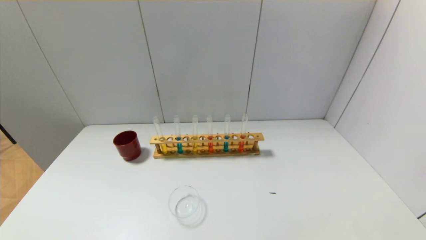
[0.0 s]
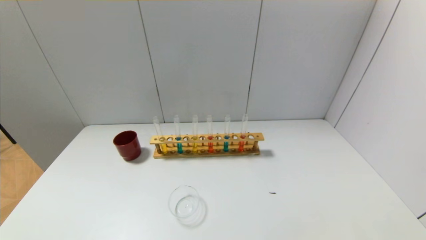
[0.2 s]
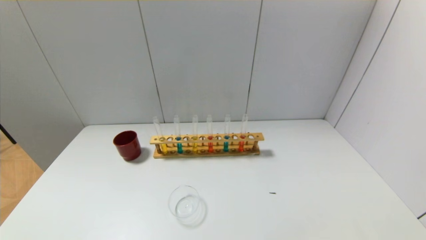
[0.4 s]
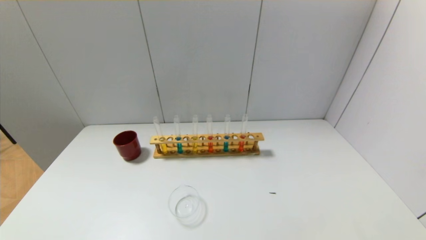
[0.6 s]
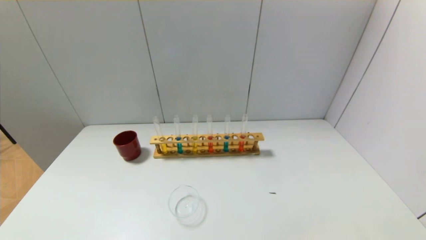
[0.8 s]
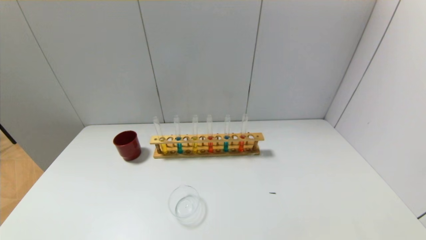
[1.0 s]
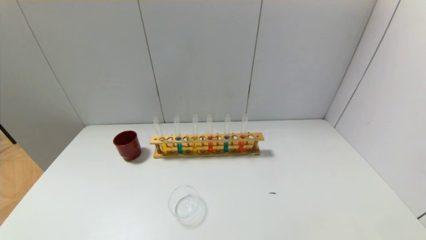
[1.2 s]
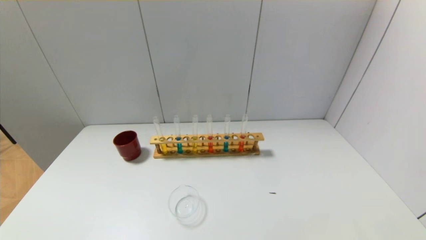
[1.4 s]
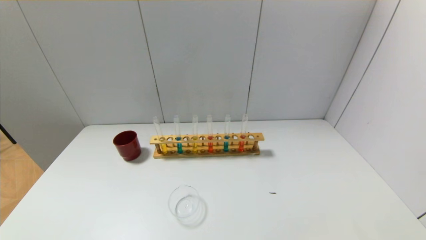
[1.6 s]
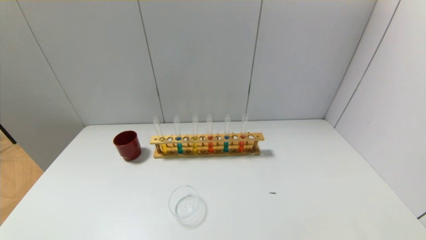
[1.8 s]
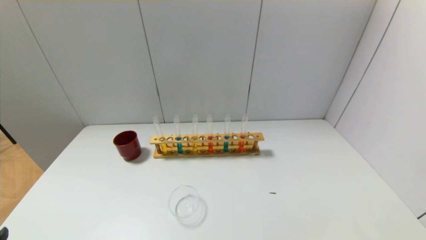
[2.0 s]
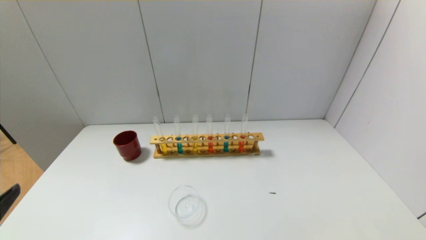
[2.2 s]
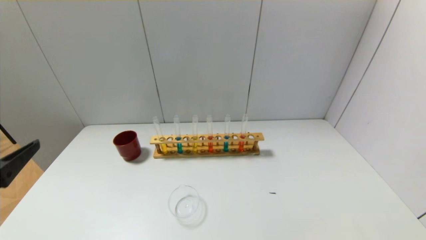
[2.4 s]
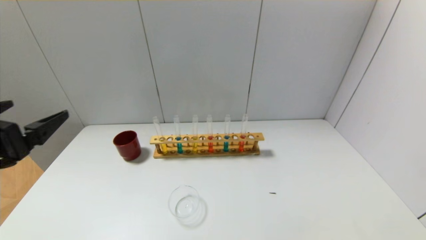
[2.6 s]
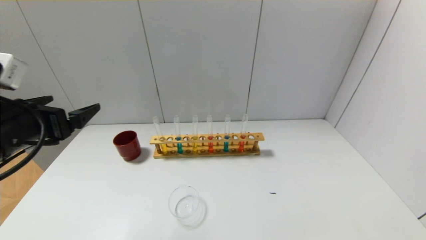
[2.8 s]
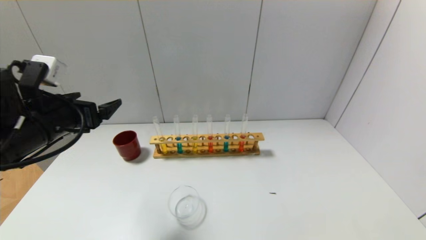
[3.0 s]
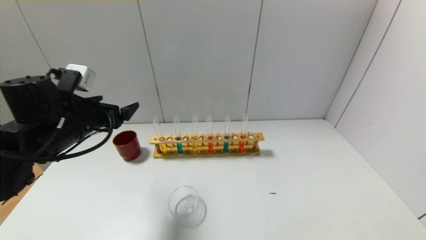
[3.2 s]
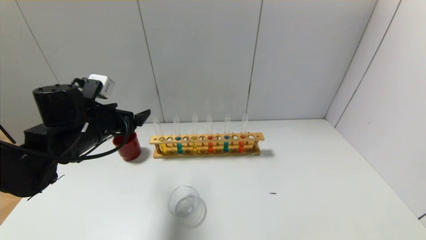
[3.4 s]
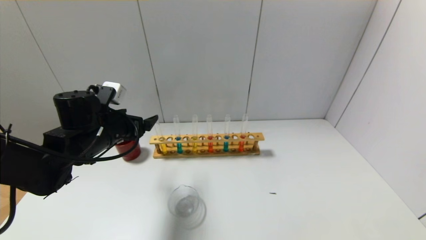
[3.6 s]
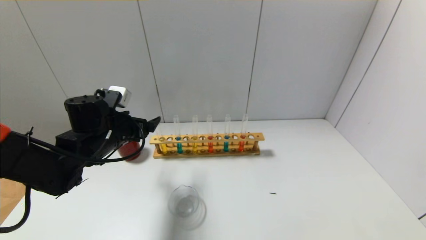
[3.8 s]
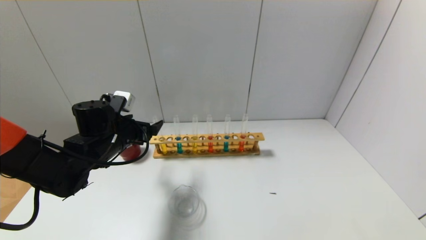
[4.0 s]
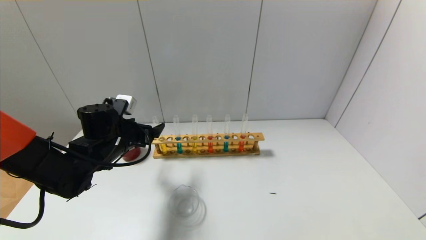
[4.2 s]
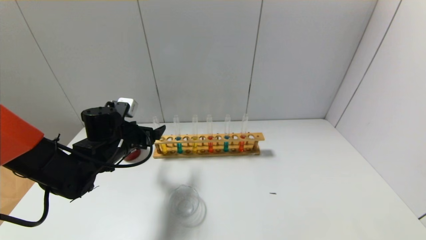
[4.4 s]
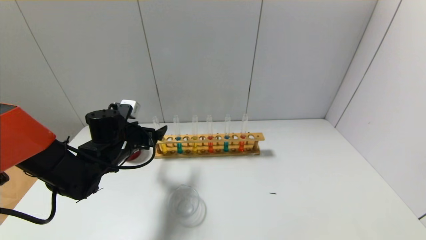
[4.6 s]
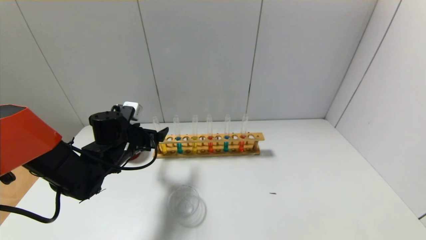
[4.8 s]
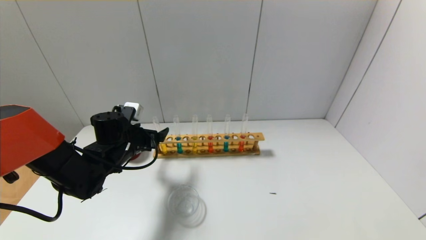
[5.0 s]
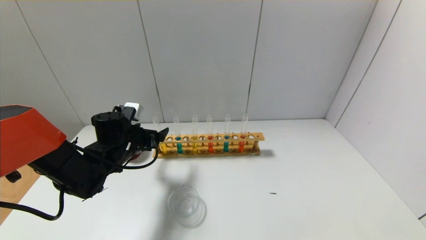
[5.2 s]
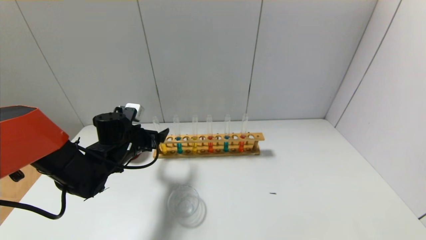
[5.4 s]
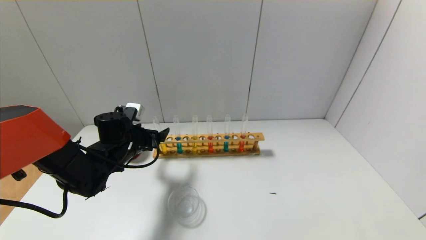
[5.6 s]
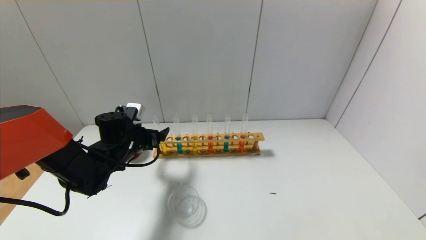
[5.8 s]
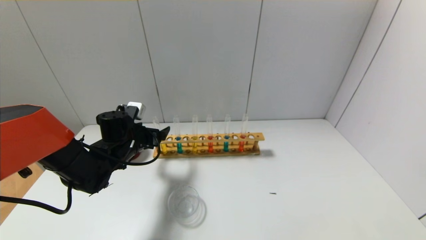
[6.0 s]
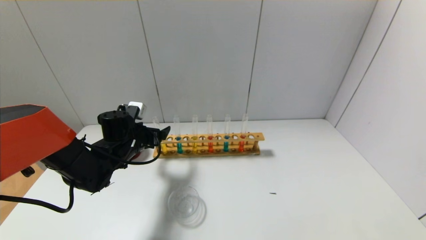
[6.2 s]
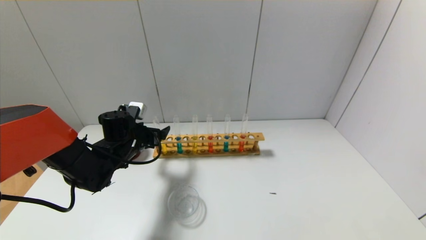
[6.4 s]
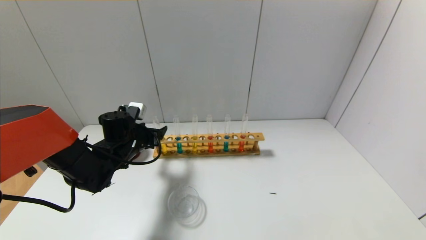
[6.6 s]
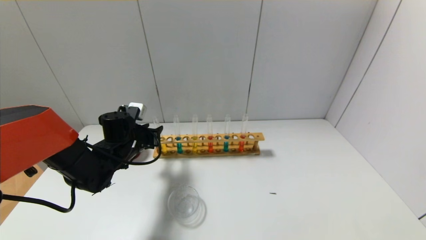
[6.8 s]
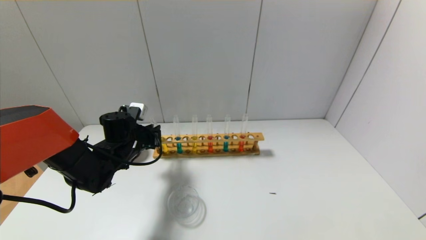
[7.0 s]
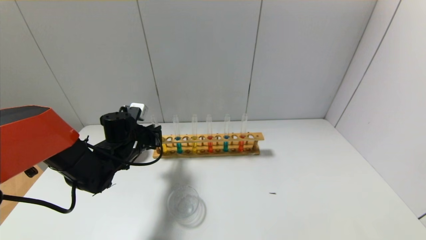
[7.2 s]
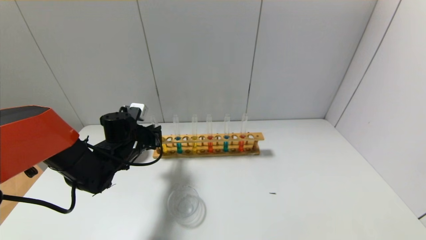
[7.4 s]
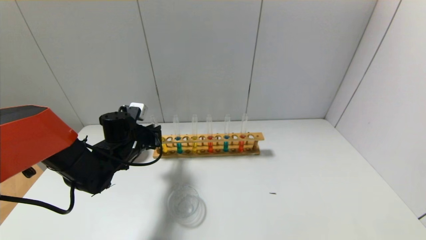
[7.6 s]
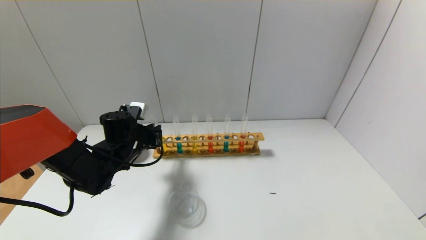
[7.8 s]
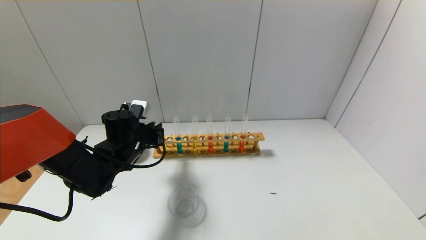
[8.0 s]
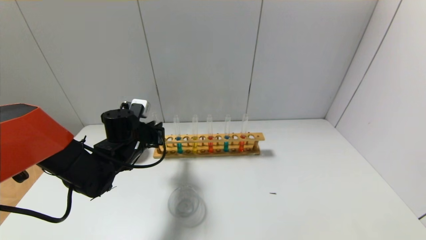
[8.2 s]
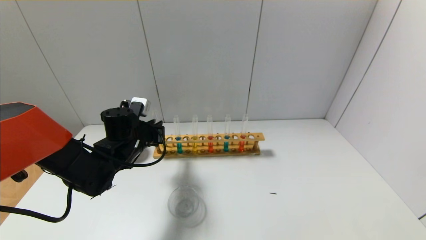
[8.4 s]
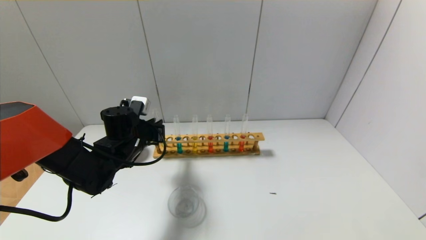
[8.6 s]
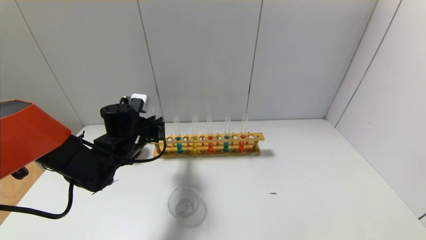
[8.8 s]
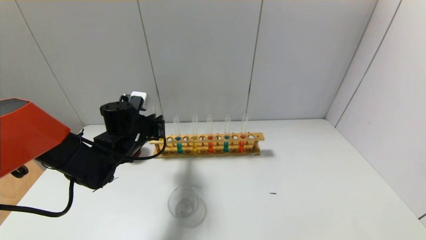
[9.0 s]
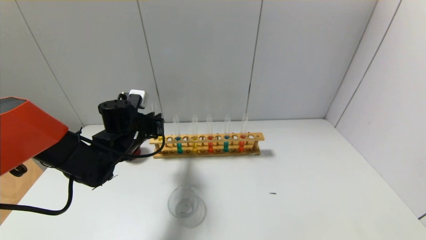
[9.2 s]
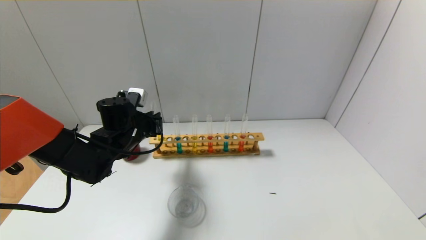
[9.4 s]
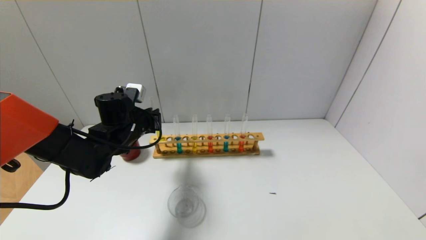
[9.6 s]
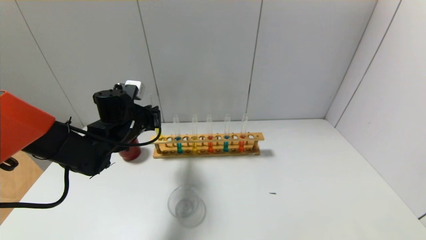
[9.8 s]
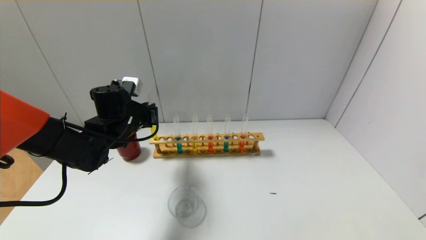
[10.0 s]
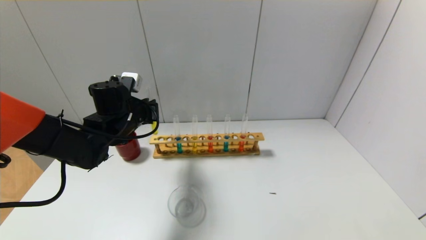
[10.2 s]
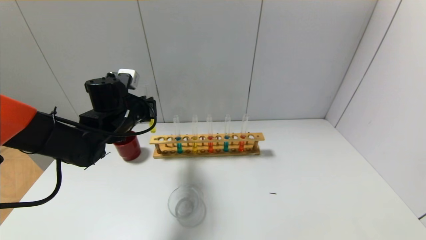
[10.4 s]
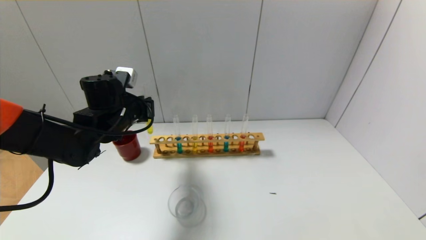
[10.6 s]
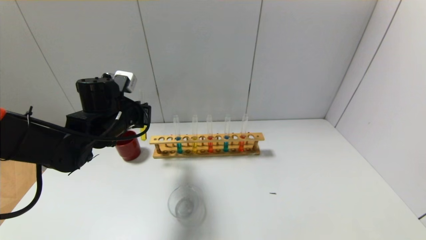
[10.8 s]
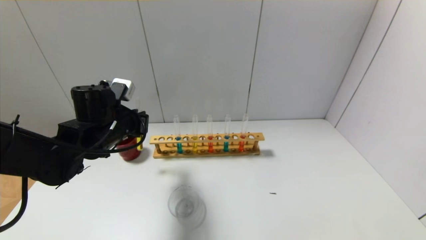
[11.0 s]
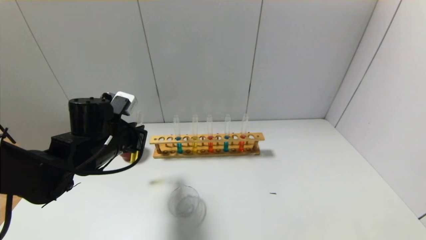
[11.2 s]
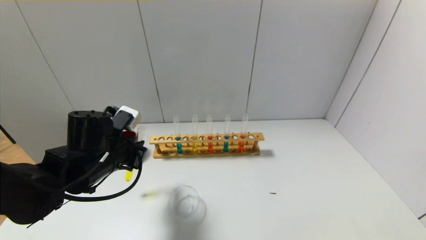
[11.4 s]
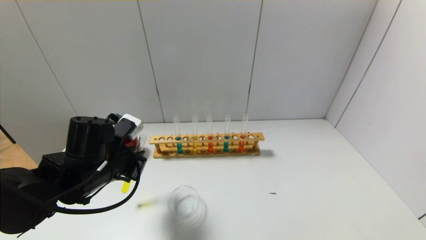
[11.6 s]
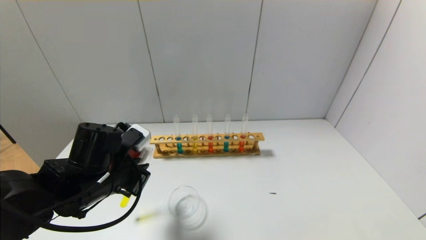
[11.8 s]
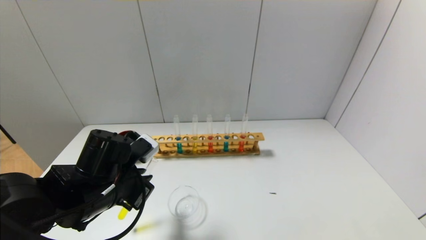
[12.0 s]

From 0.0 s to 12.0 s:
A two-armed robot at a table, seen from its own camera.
Step, from 0.0 s to 7.0 s: Grasp the yellow reagent with the left gripper.
From 1.6 s to 3.0 s: The left gripper is displaced forward and upward by about 30 cm.
From 3.0 s to 4.4 s: The left gripper heads downward, forward and to the right, covering about 15 cm.
From 4.4 s to 6.0 s: The grippers stay close to where they were, moving slightly.
From 6.0 s to 7.6 s: The left gripper closes.
From 7.6 s to 9.0 s: The grippers move only a little.
From 9.0 s to 10.4 s: The left gripper goes roughly 5 cm upward.
From 10.4 s to 12.0 s: The left gripper is displaced backward by about 15 cm.

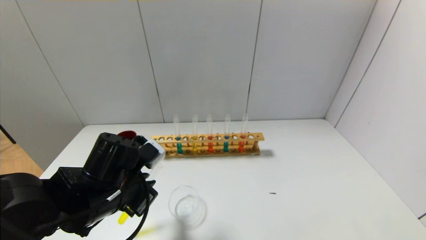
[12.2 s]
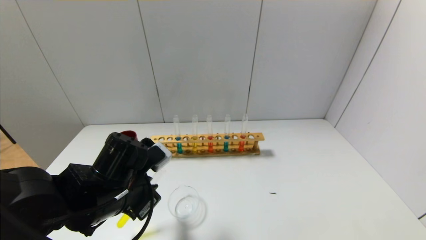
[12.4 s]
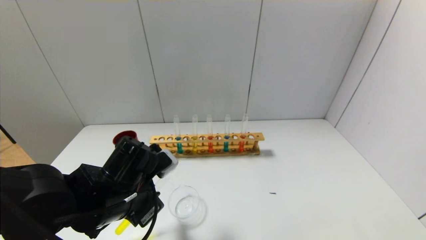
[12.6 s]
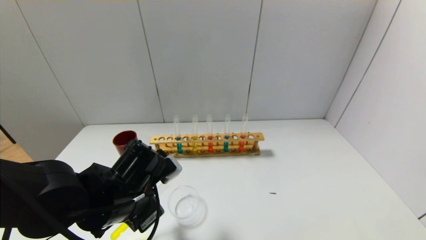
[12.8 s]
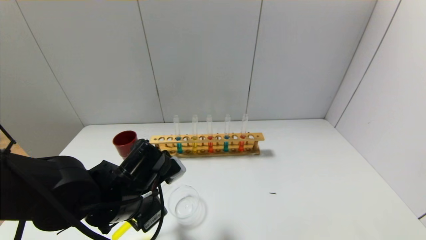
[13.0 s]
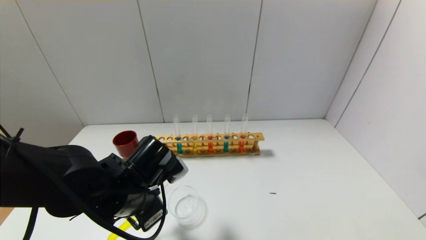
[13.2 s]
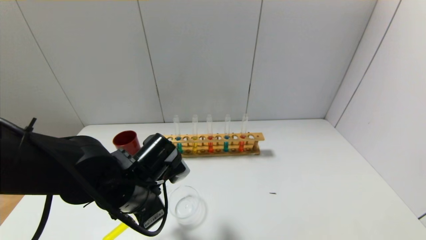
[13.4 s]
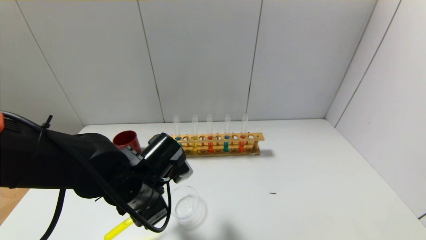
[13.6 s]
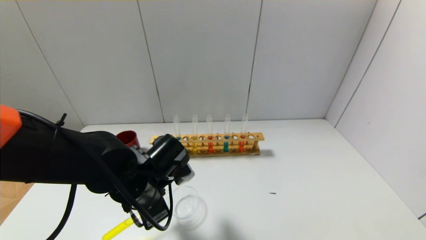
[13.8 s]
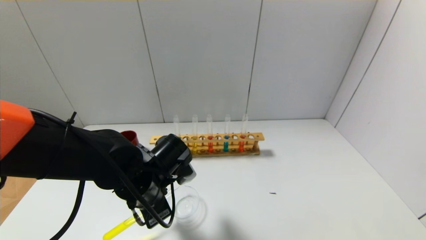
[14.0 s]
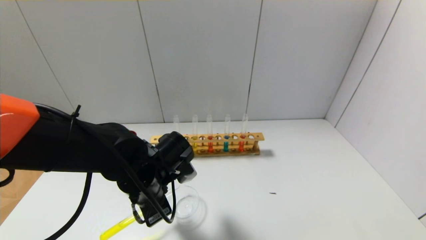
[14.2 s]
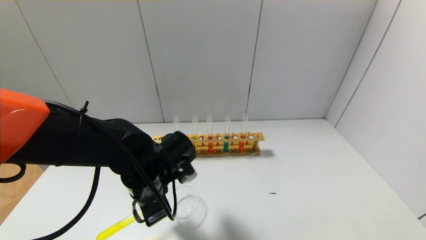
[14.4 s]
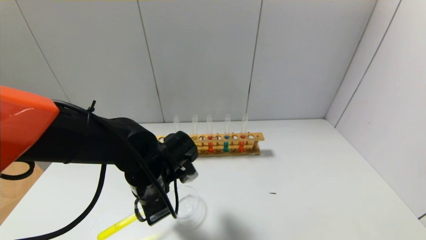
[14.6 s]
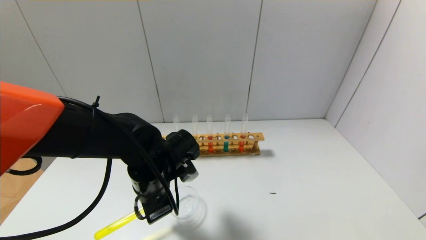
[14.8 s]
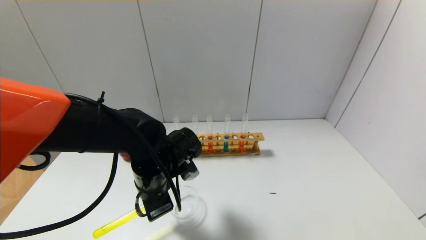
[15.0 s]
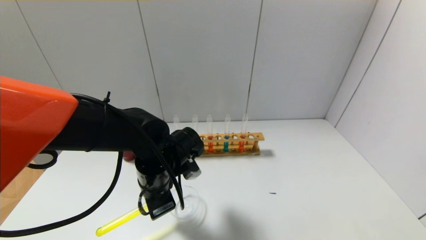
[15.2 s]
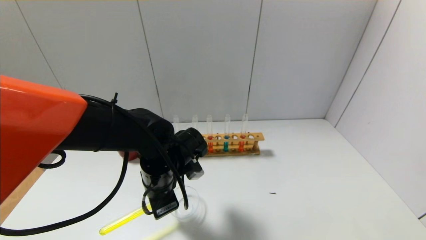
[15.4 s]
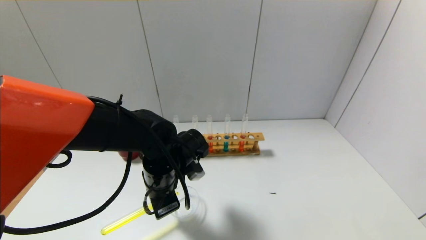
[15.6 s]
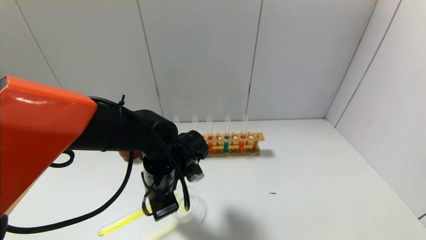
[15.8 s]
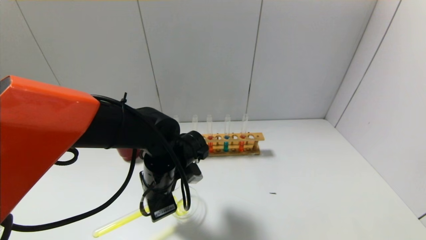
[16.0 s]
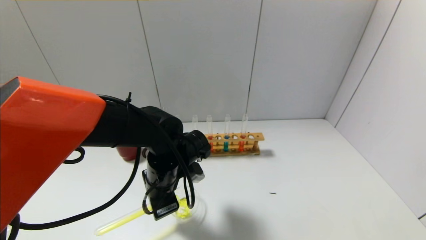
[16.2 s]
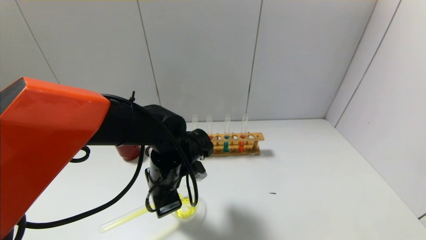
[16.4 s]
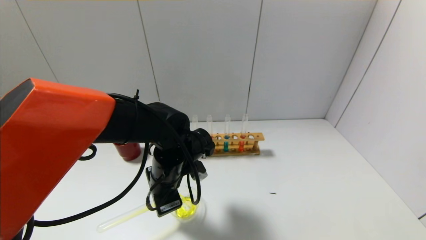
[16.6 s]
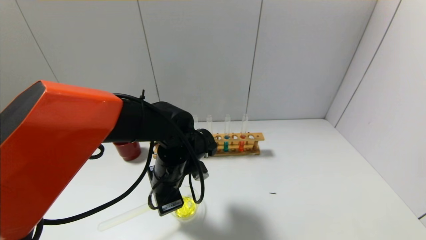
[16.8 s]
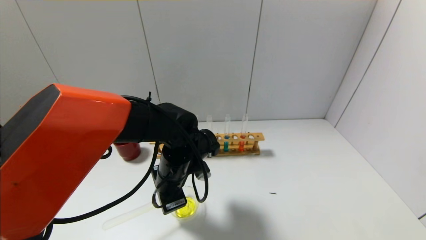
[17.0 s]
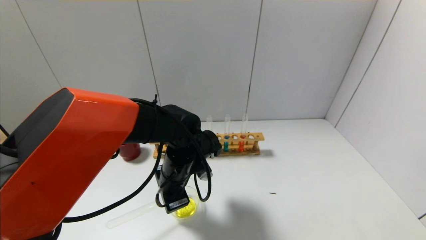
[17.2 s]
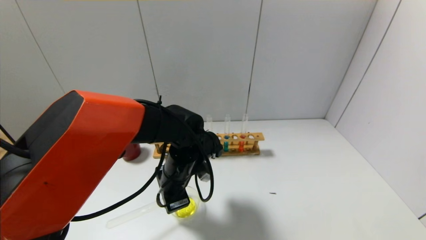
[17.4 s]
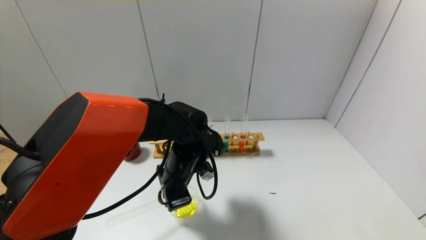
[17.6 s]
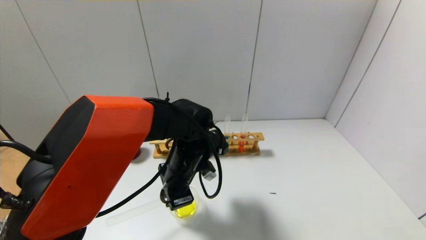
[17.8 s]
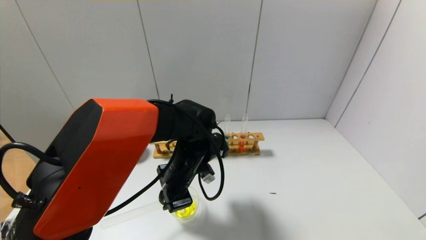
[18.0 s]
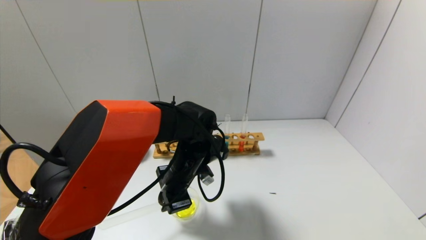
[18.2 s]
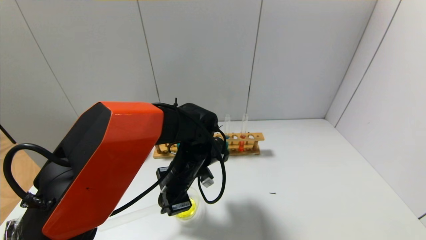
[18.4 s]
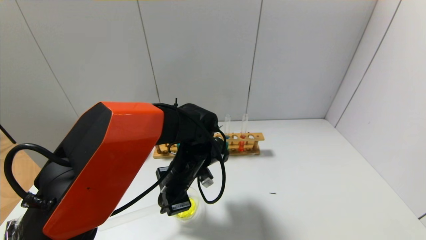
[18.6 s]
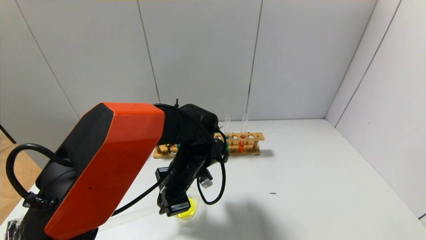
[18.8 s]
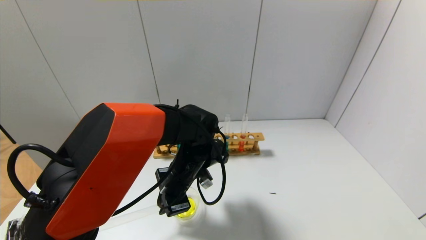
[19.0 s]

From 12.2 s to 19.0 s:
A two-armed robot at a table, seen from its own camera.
From 13.6 s to 15.0 s: The grippers stay close to where they were, moving slightly.
From 15.0 s to 16.2 s: The grippers make only small movements.
From 17.6 s to 19.0 s: The grippers move only a little.
